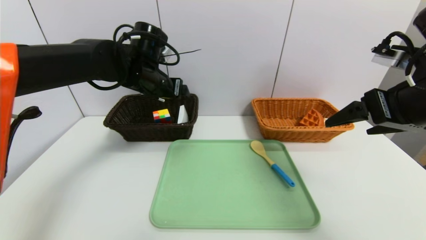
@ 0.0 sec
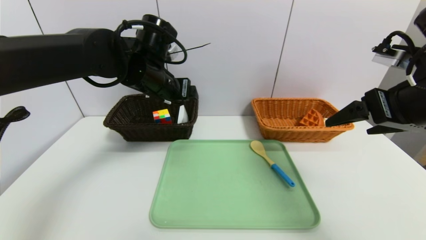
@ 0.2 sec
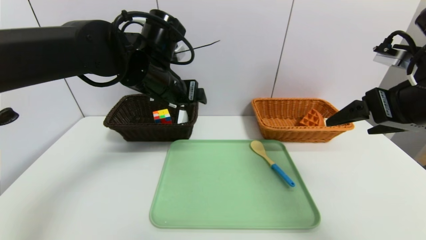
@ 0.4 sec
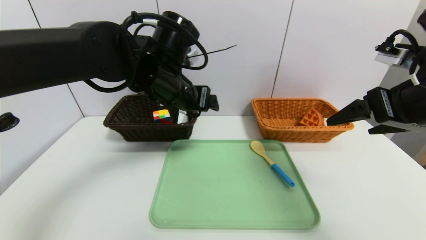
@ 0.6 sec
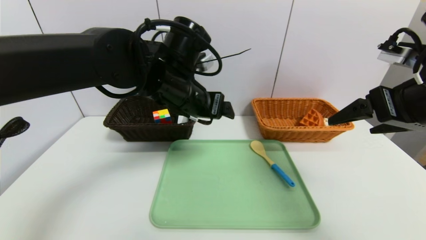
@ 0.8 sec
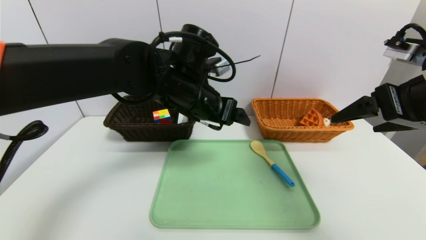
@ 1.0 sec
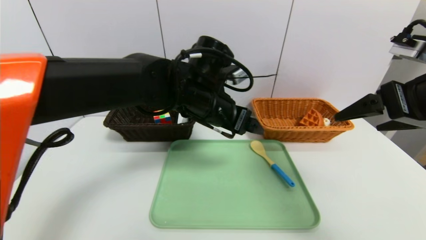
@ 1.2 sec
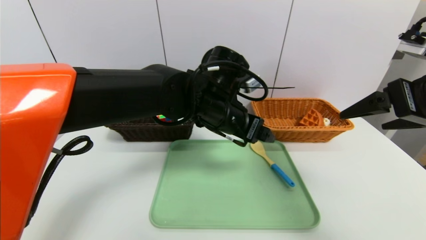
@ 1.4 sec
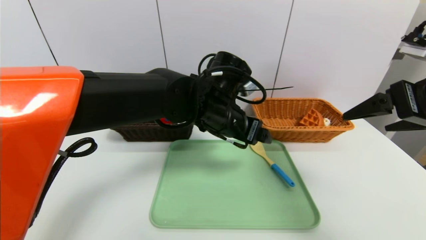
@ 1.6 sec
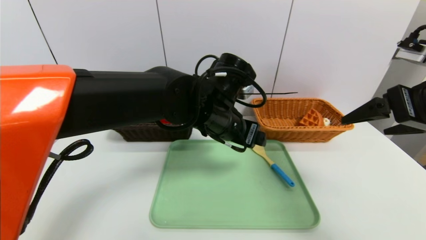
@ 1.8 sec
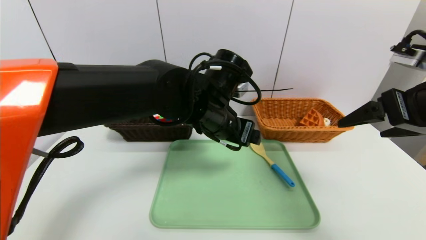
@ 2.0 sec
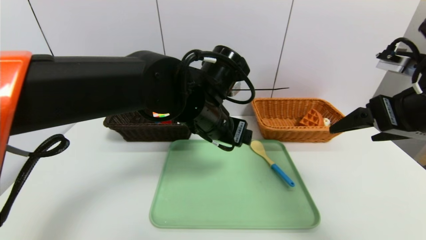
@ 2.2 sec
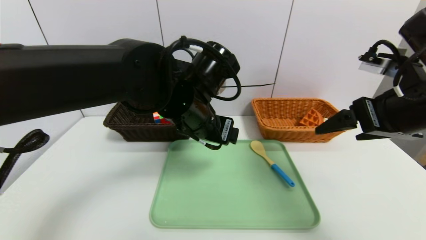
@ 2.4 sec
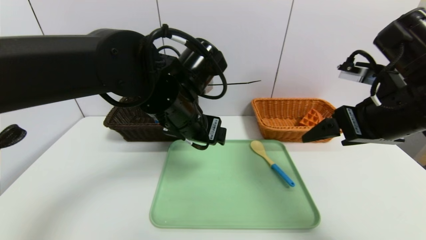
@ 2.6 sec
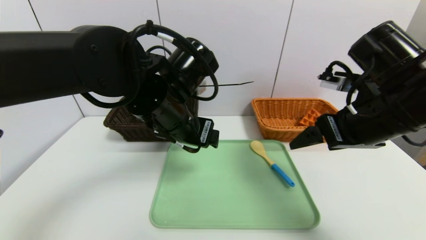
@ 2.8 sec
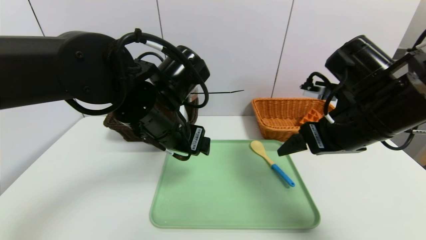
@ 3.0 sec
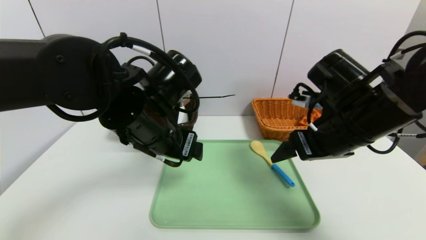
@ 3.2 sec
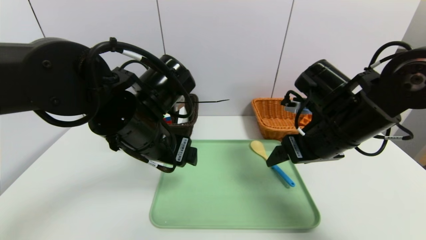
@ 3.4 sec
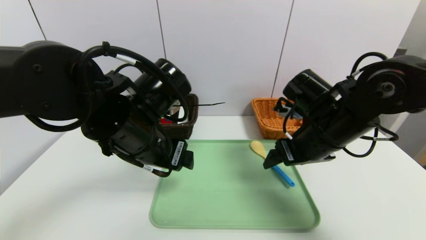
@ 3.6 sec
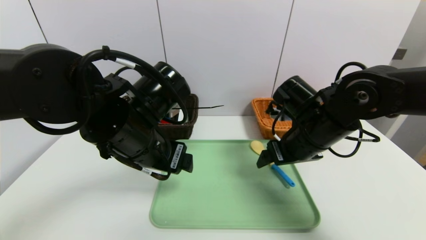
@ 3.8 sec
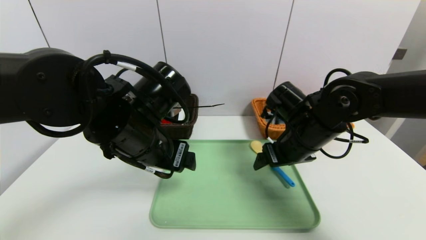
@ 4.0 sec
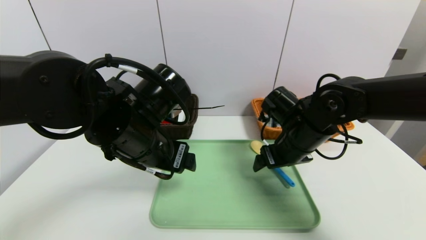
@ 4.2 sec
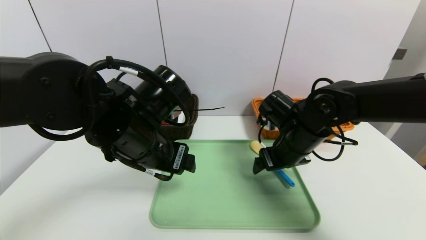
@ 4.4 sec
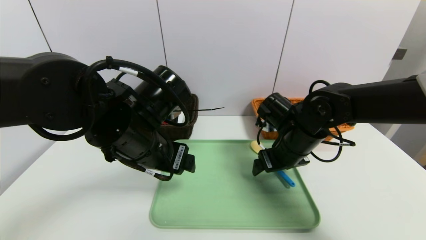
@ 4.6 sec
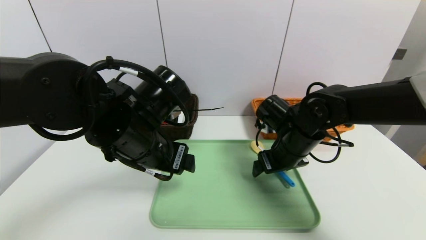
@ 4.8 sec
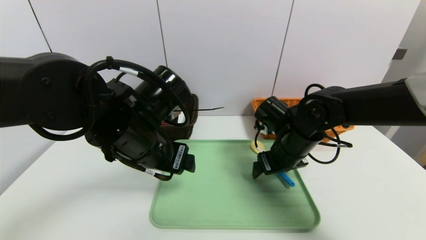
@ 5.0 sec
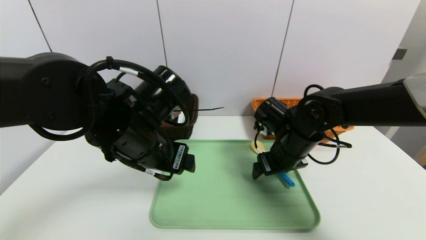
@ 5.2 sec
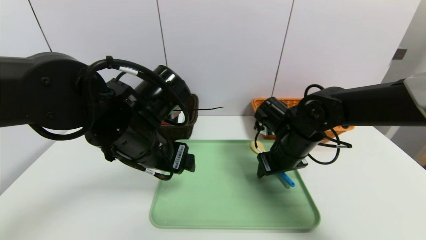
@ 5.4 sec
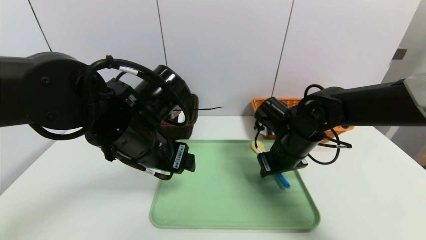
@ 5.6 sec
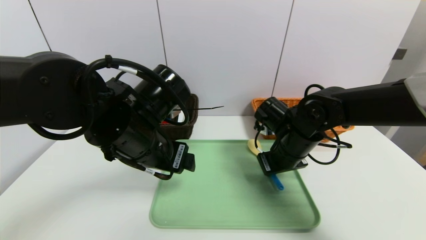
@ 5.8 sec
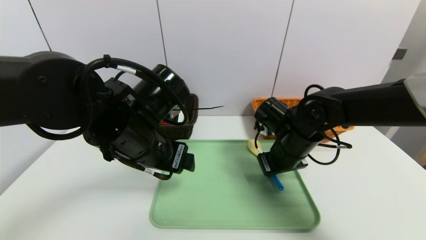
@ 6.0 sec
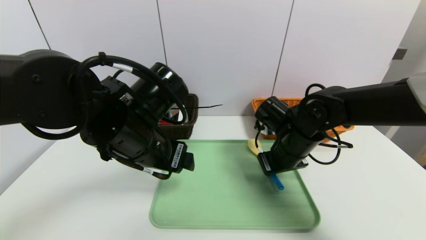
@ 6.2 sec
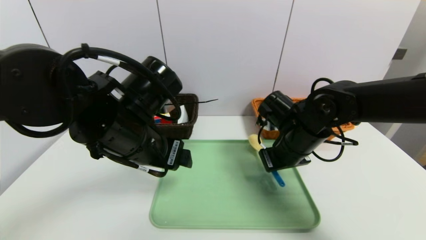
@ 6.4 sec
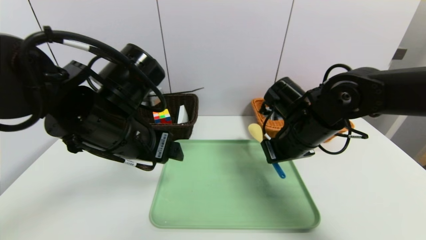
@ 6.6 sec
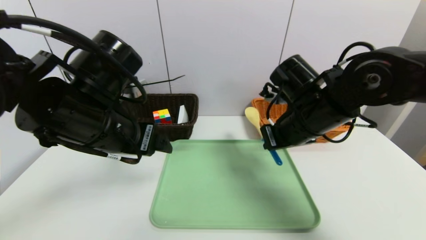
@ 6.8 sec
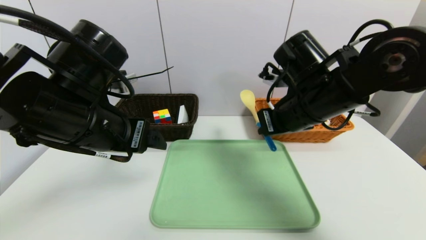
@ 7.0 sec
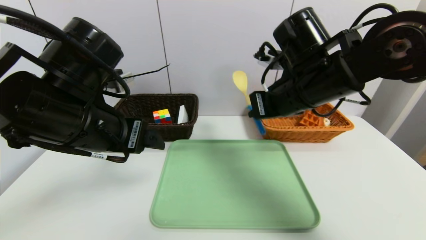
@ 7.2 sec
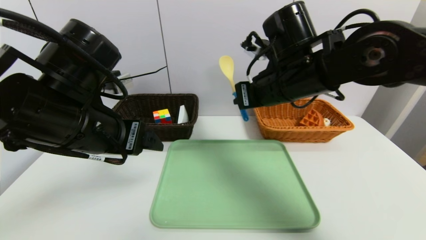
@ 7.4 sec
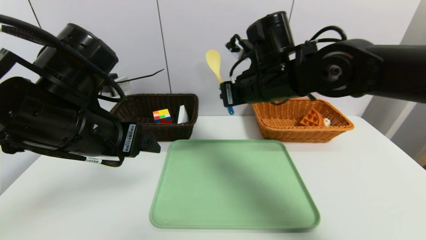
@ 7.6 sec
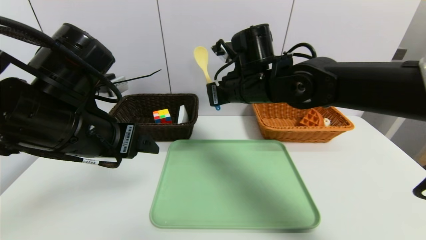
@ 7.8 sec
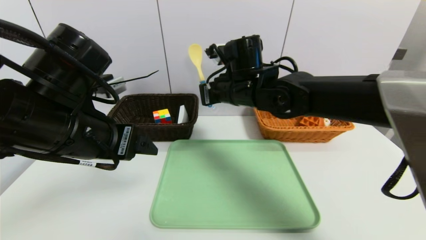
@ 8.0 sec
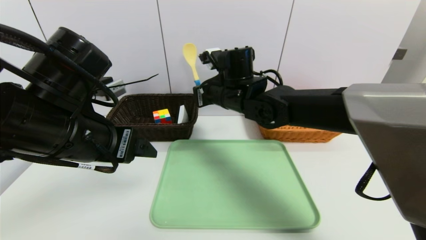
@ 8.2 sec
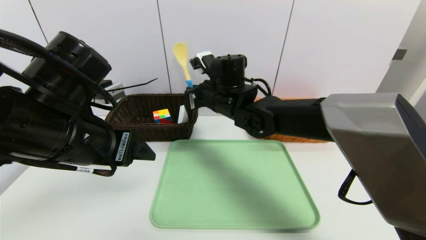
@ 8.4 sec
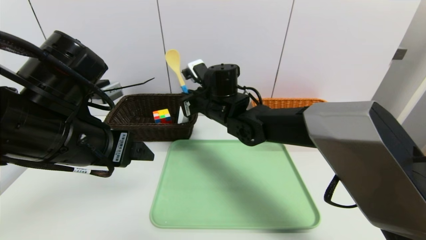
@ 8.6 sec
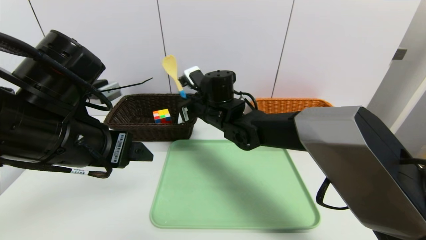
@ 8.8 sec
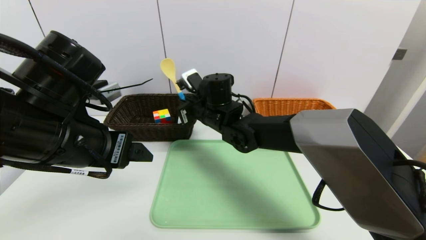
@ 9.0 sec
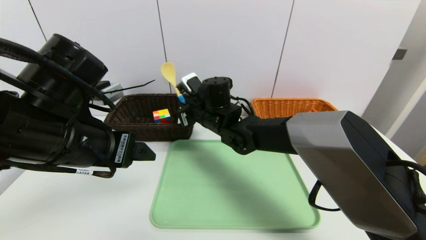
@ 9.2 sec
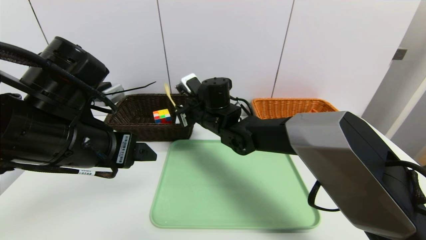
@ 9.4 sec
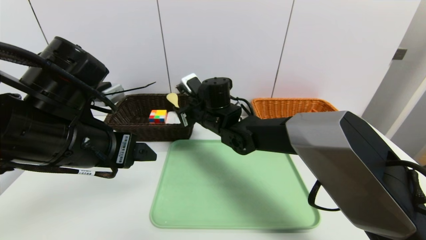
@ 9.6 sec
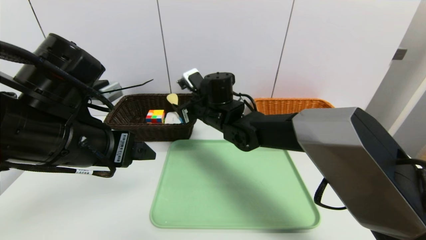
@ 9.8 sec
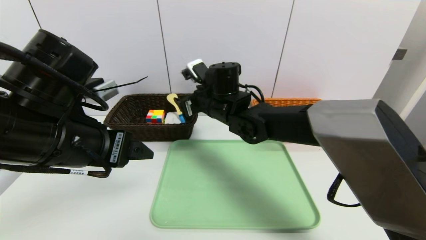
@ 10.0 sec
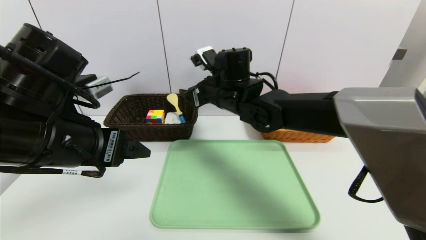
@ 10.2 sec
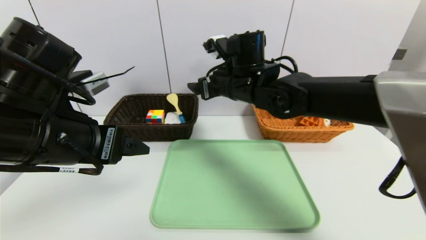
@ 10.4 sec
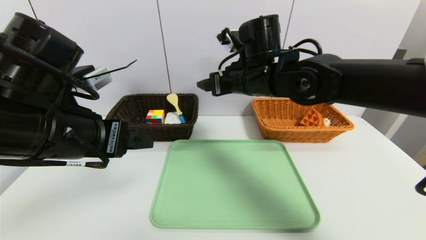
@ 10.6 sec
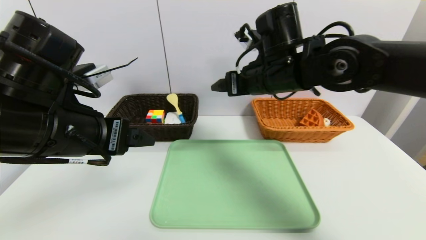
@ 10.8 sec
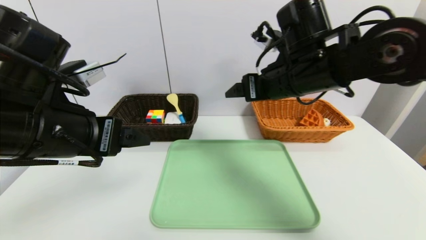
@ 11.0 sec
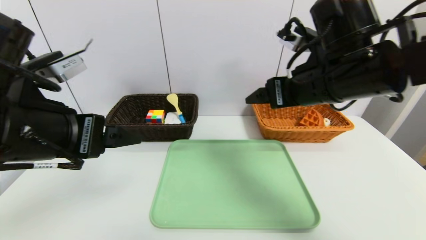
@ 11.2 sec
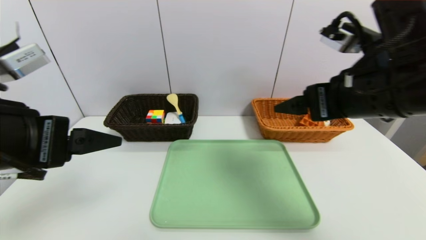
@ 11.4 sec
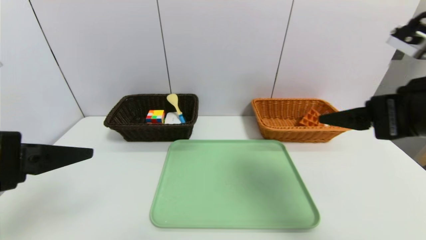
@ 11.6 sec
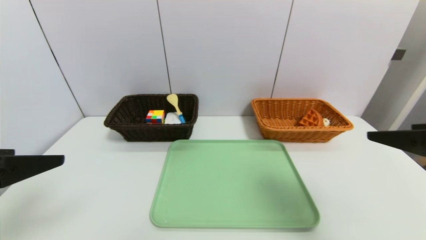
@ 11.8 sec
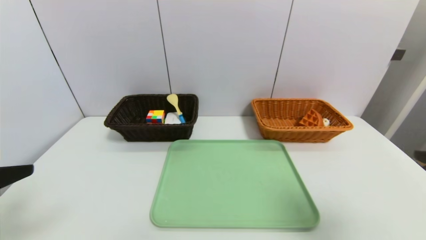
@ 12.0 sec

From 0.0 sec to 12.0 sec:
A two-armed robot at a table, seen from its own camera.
Task of the whole recording: place the food in the right basket with the right gripper, and place the non food items in the left basket with the left gripper.
Step, from 0.6 sec to 9.8 sec: Grasp the back scratcher and put it in the left basket.
From 0.0 sec to 1.6 sec: The left gripper moves to the right and backward, roughly 15 cm.
From 1.6 sec to 3.0 sec: The right gripper goes approximately 10 cm to the left and downward, while the left gripper moves to the left and backward, roughly 10 cm.
From 3.0 sec to 4.4 sec: The right gripper travels downward and forward by roughly 10 cm.
From 4.4 sec to 6.0 sec: The right gripper closes up.
From 6.0 sec to 7.6 sec: The left gripper shifts approximately 5 cm to the left, while the right gripper goes roughly 15 cm upward and to the left.
From 7.6 sec to 9.0 sec: The right gripper heads to the left, downward and forward, covering some 15 cm.
From 9.0 sec to 10.4 sec: The right gripper moves upward and to the right, about 10 cm, and opens up.
From 10.4 sec to 12.0 sec: The right gripper travels backward and to the right by about 40 cm. Meanwhile the left gripper is displaced backward and to the left by some 15 cm.

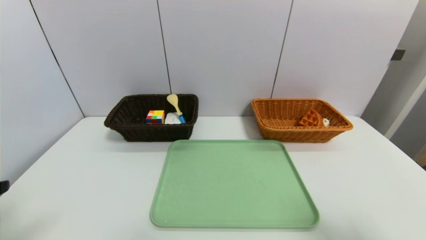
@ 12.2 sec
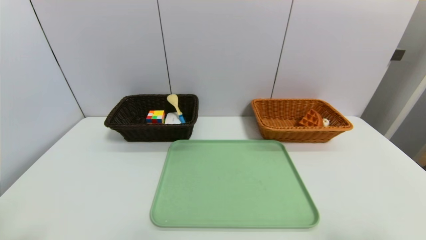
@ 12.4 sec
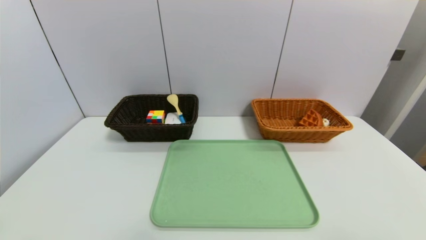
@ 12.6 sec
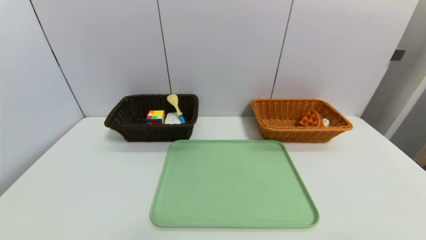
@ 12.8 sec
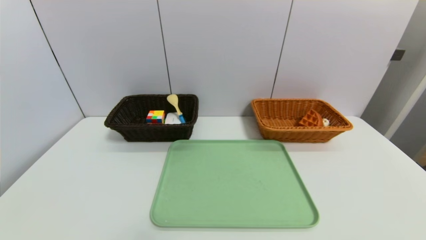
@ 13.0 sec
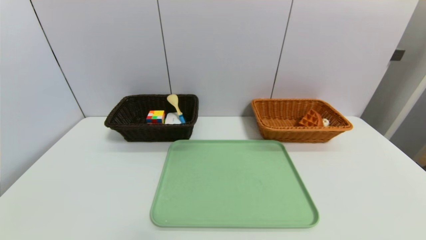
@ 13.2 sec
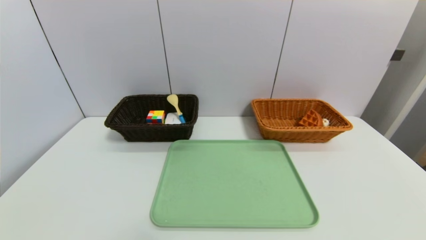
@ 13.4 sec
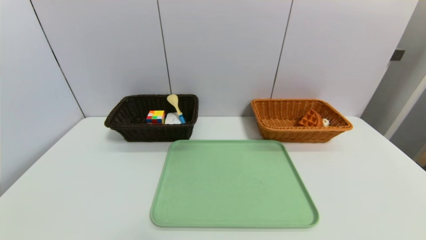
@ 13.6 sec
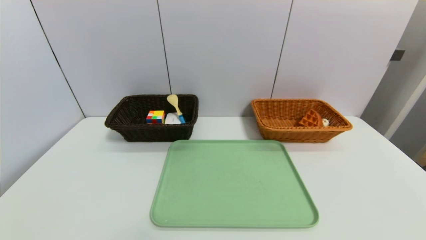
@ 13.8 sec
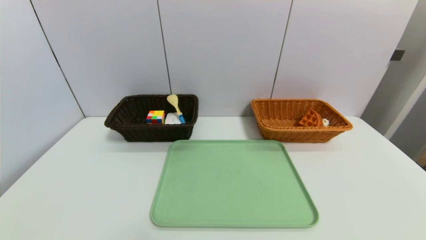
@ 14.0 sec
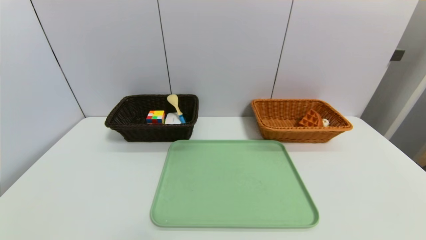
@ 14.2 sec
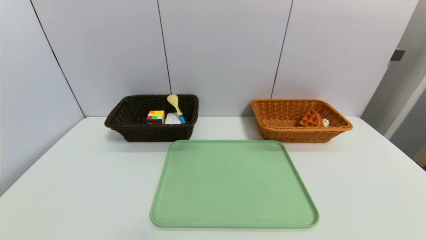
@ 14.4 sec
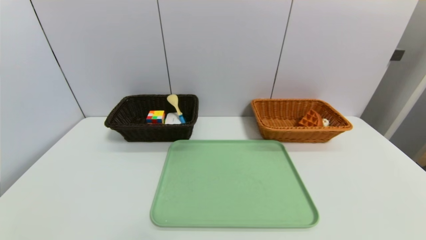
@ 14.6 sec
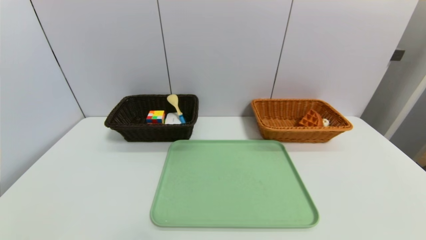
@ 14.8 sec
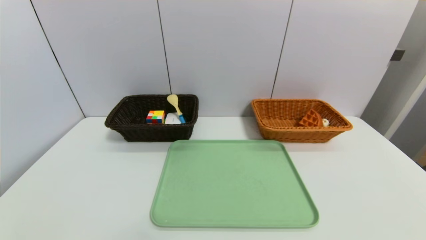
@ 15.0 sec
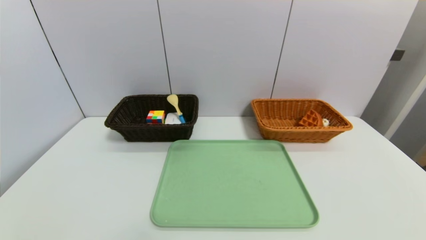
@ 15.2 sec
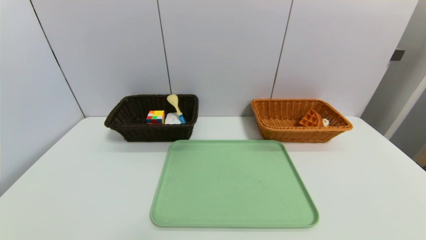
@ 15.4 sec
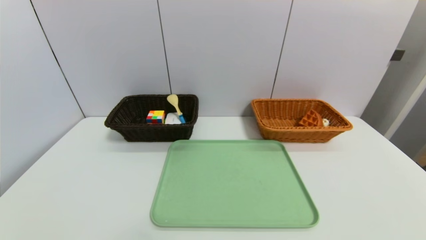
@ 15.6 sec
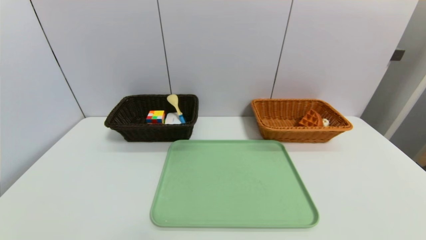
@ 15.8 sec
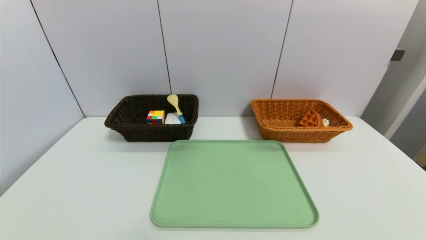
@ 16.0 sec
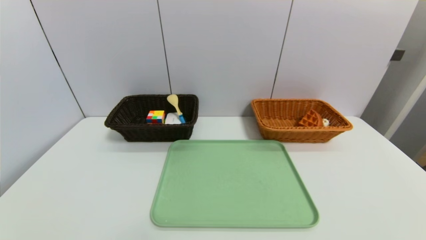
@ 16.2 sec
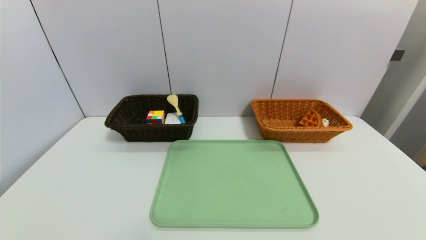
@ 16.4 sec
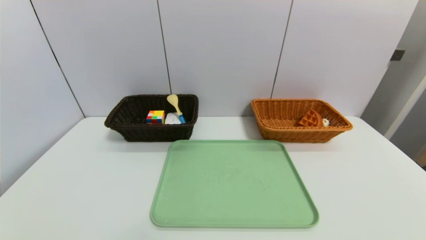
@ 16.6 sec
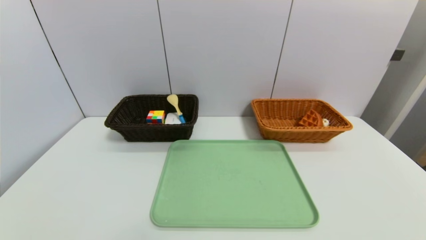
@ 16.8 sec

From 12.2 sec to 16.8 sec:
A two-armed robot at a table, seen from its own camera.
Task of the whole recording: place the food in the right basket with the right gripper, and place the non food items in the left basket with the left gripper.
From 12.2 sec to 13.8 sec: The right gripper goes roughly 15 cm backward and downward. Meanwhile the left gripper goes approximately 15 cm downward and backward.
